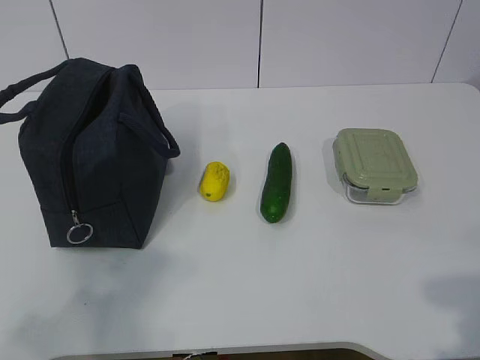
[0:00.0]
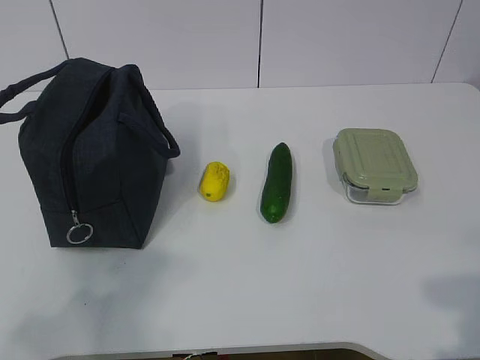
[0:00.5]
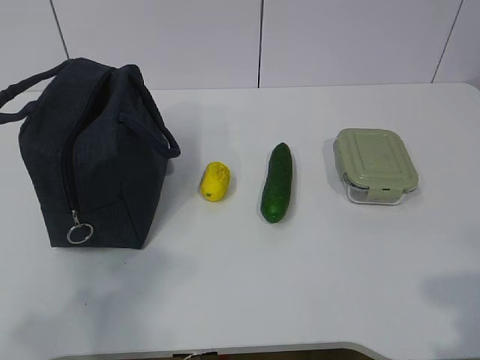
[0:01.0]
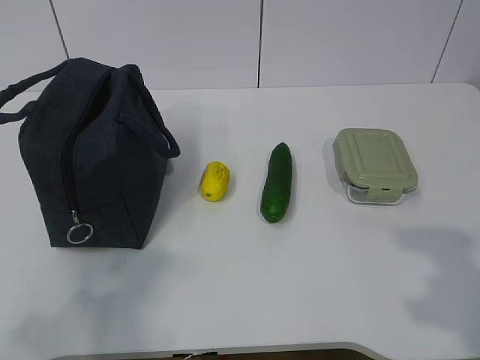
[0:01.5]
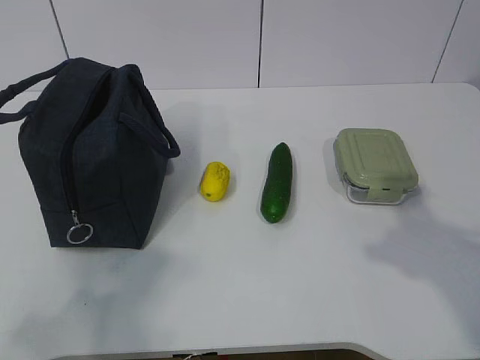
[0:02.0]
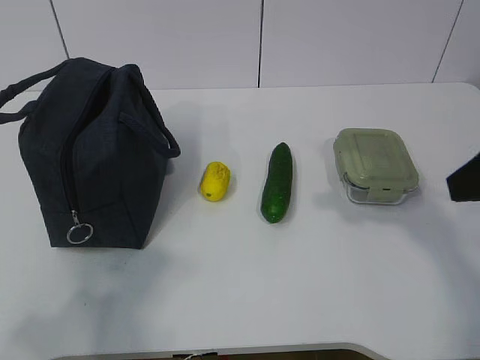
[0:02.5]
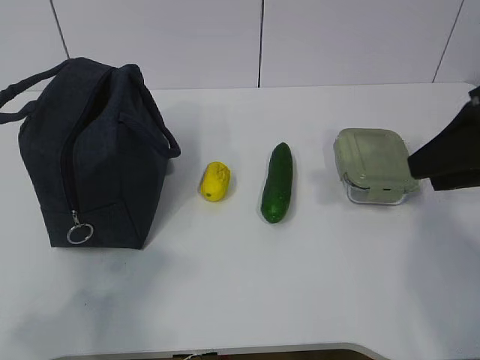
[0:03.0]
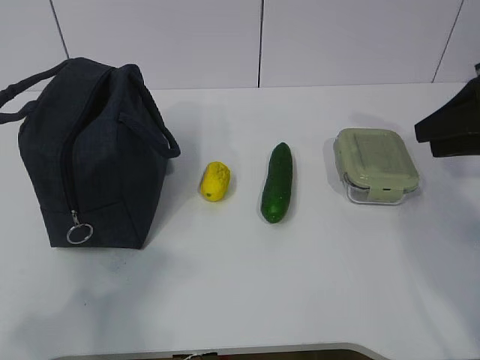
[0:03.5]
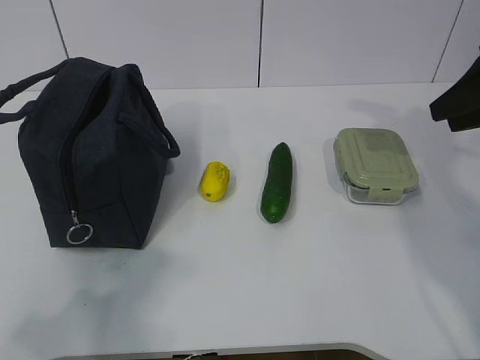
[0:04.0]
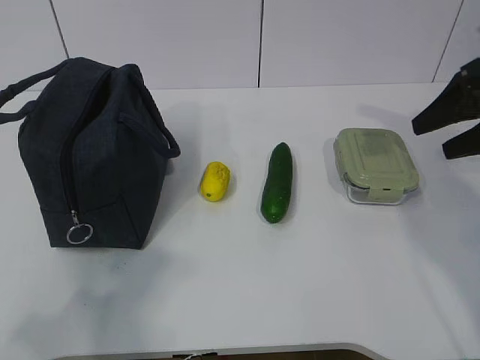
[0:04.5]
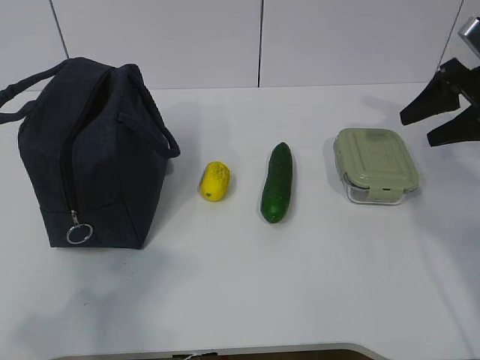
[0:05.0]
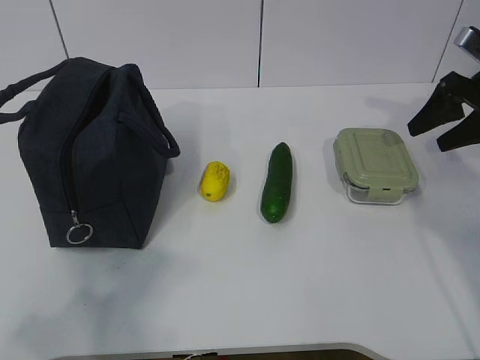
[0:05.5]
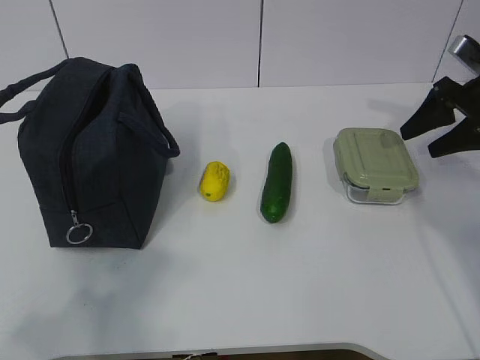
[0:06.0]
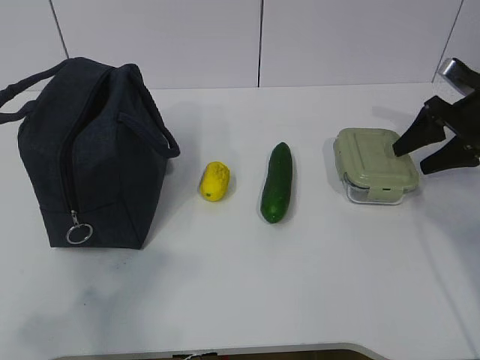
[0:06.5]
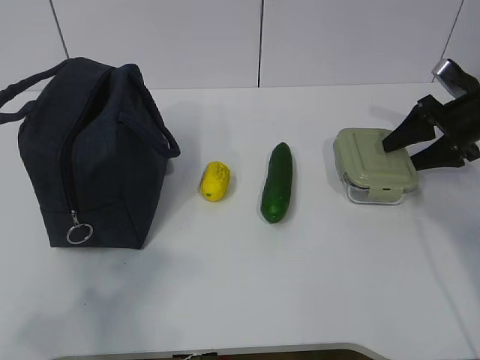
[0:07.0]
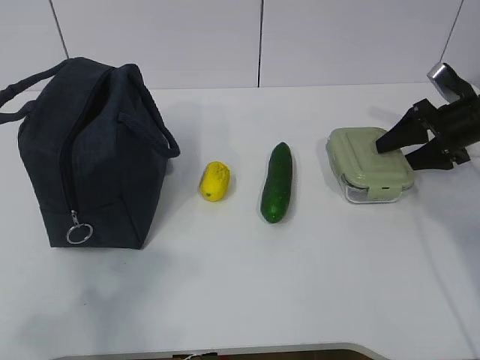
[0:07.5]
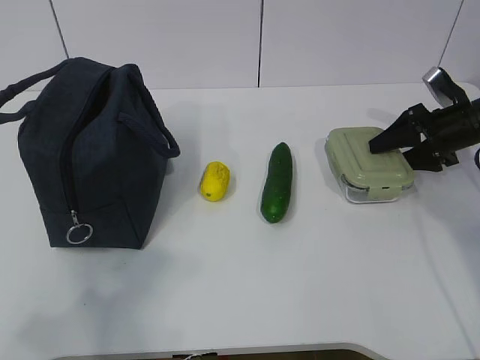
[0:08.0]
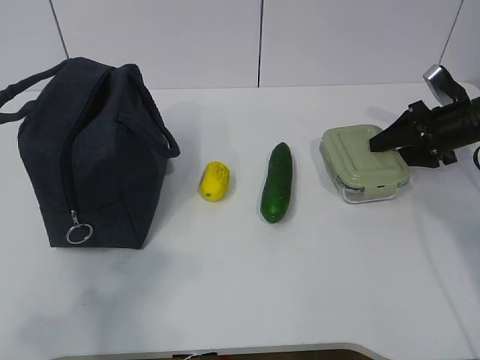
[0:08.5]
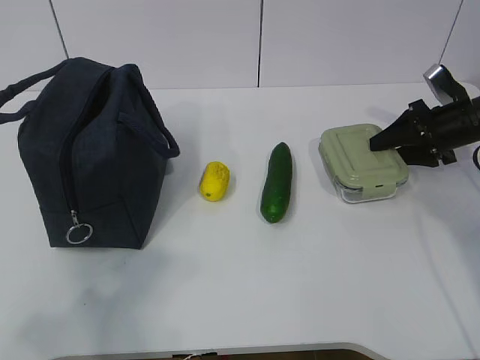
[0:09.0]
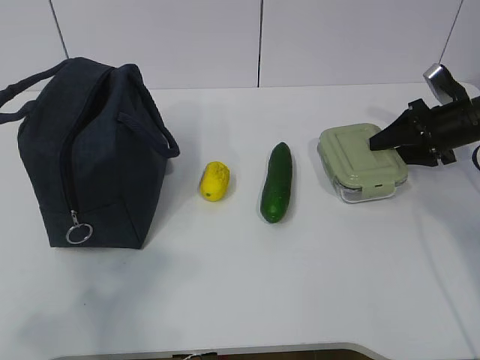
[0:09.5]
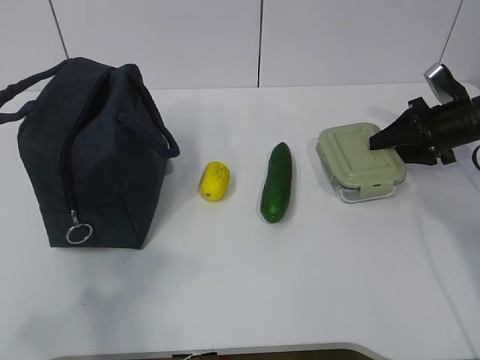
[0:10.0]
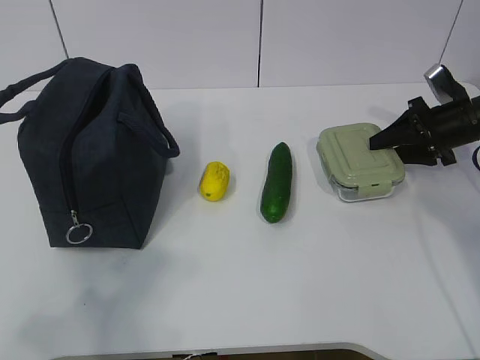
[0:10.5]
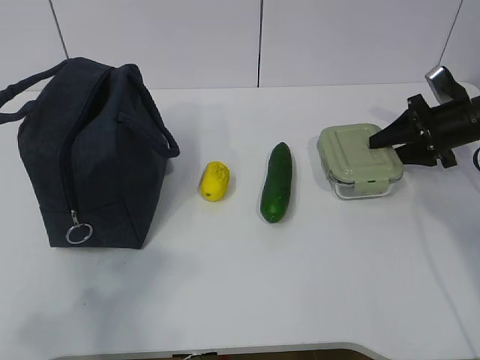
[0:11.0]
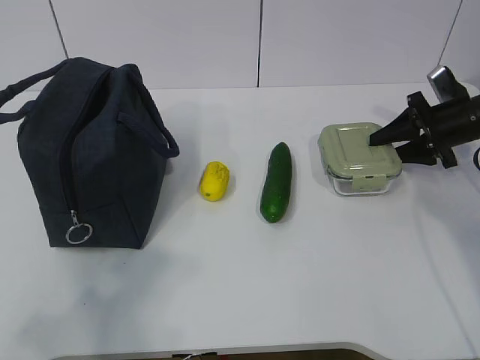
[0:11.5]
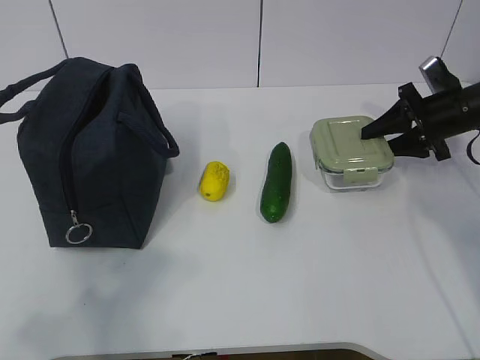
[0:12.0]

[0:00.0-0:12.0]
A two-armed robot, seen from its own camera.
Step, 0:00.0 to 0:09.0: Grab the lunch box with your right hand.
0:02.0 to 0:04.0: The right gripper is displaced forward by roughly 25 cm.
0:04.0 to 0:06.0: The right gripper heads forward and downward, covering roughly 10 cm, and opens up.
0:06.0 to 0:08.0: The right gripper goes some 5 cm downward.
0:08.0 to 0:10.0: The two grippers keep their place.
0:10.0 to 0:12.0: There are only small adjustments of the grippers.

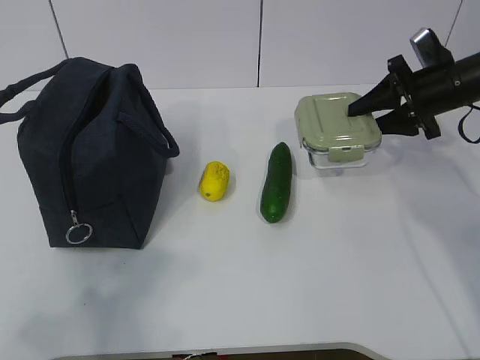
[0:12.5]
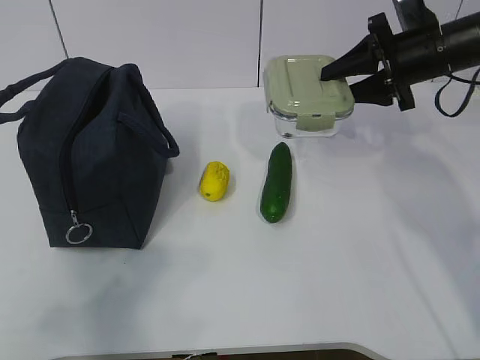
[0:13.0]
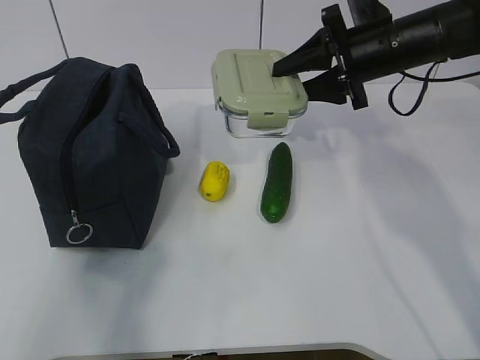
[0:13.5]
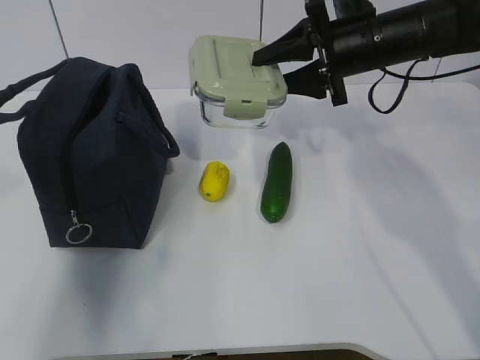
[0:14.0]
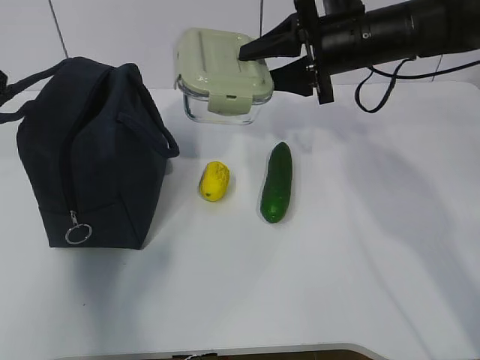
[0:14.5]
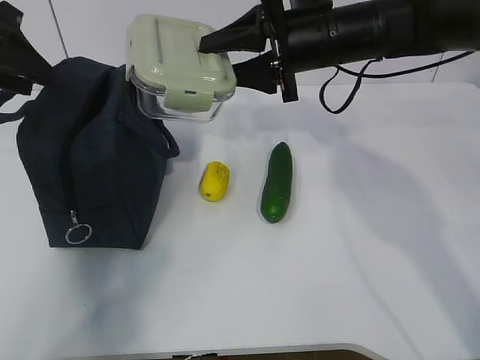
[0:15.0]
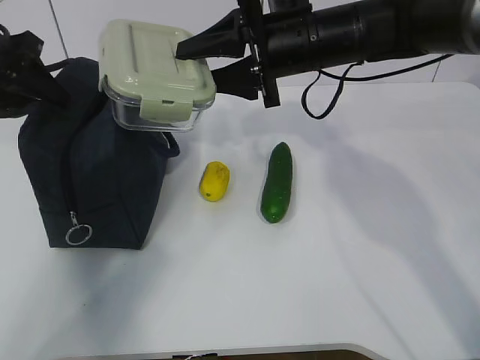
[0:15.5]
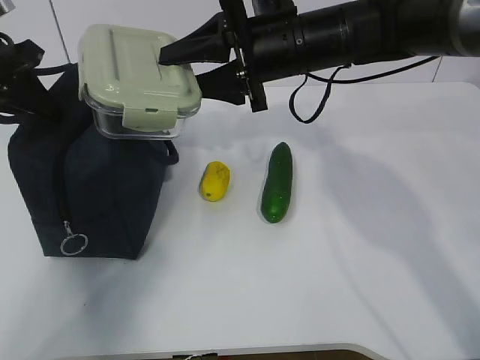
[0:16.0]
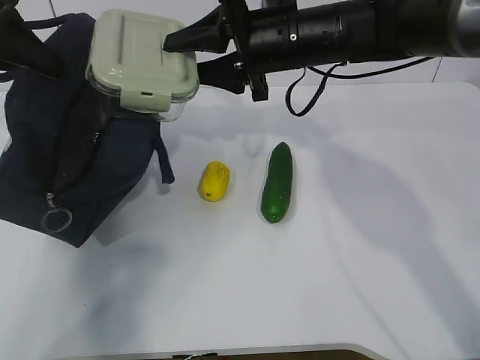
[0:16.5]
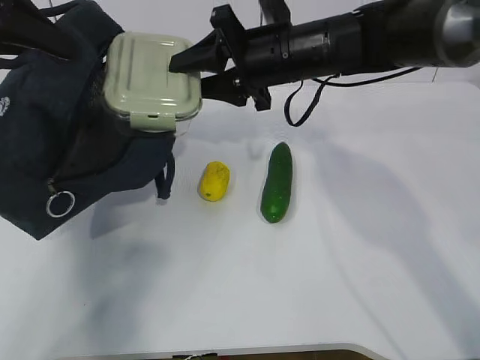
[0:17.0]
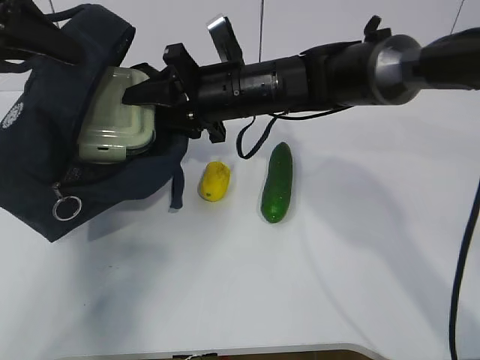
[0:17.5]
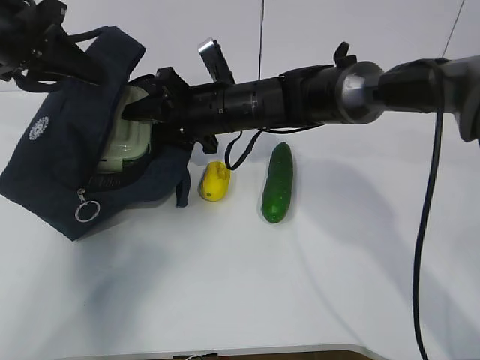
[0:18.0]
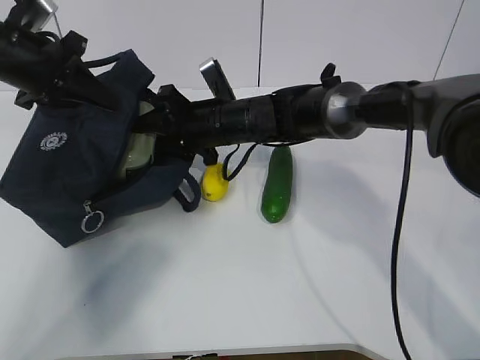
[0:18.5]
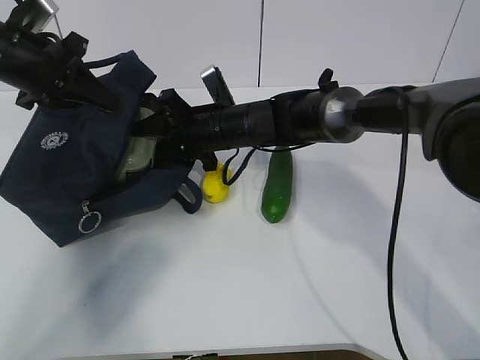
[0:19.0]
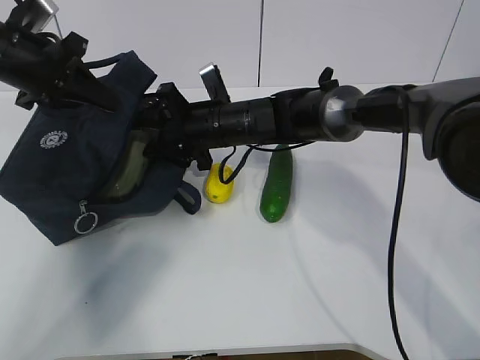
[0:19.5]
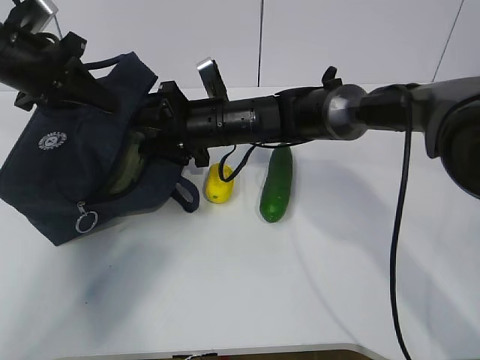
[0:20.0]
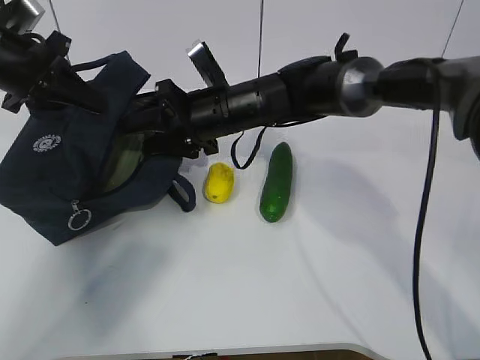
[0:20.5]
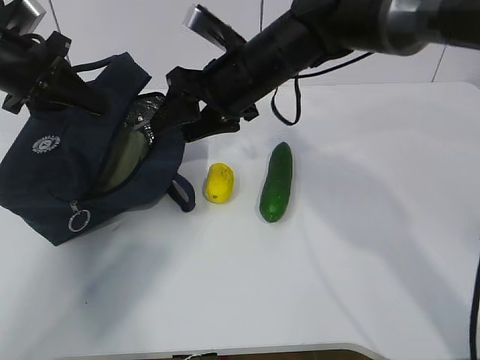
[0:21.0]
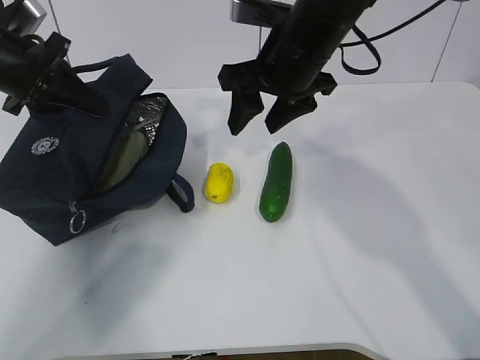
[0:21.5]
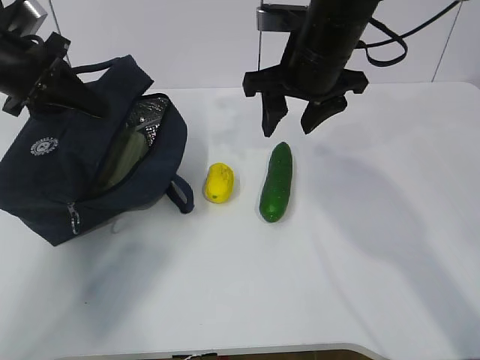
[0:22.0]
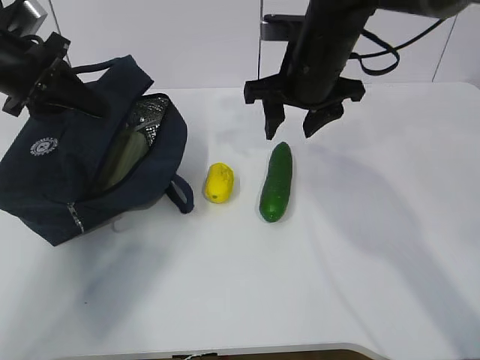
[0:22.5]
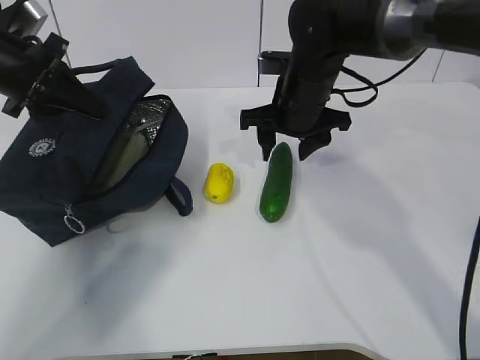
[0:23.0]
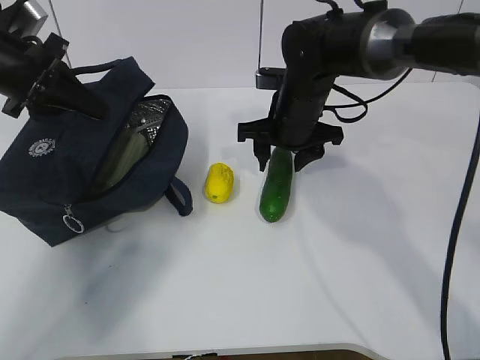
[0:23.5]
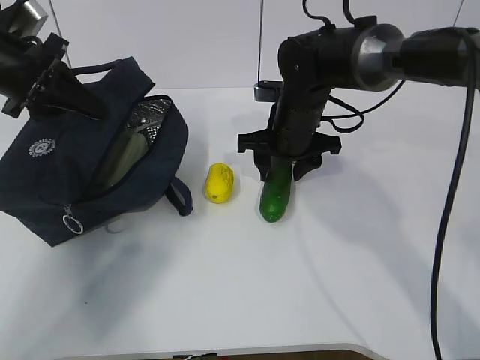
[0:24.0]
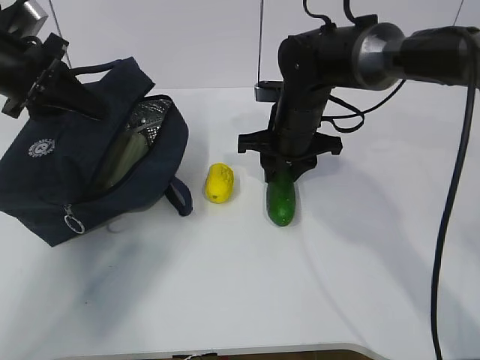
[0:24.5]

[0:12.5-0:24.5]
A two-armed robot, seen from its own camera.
Step, 0:14.0 to 0:16.0: Place it into the bag with your right hand.
Step, 0:16.5 to 0:20.0: Grab the cucumber with your right hand.
Step, 0:20.5 to 0:23.0: Place it into the bag with your right hand.
0:12.5 to 0:14.5: The left gripper is displaced forward by roughly 30 cm. The right gripper travels to the left and upward by some 15 cm.
0:14.5 to 0:16.5: The right gripper goes roughly 10 cm to the left. Meanwhile the left gripper is displaced forward by roughly 5 cm, and closes up.
0:16.5 to 0:18.5: The right gripper moves downward and to the left, approximately 15 cm. The left gripper goes roughly 5 cm downward.
0:18.5 to 0:20.5: The grippers make only small movements.
0:20.5 to 0:22.5: The right gripper travels to the right and upward by some 10 cm.
0:22.5 to 0:24.5: The right gripper shifts approximately 10 cm downward.

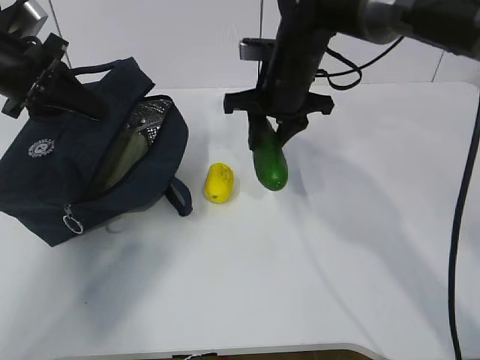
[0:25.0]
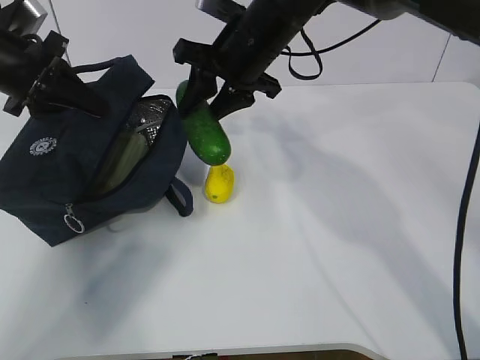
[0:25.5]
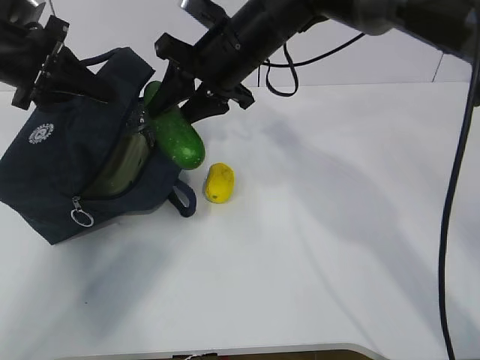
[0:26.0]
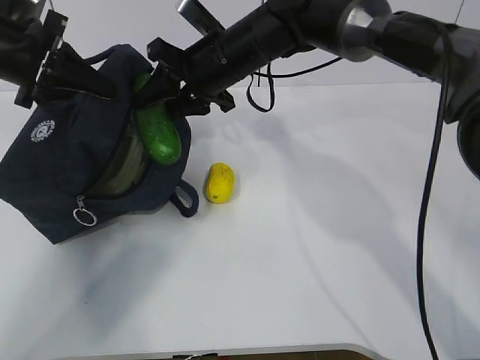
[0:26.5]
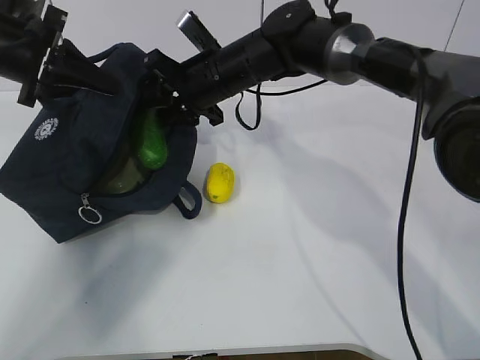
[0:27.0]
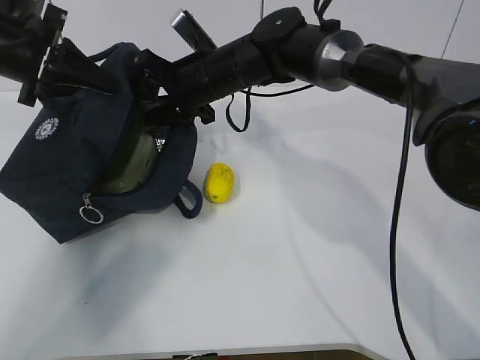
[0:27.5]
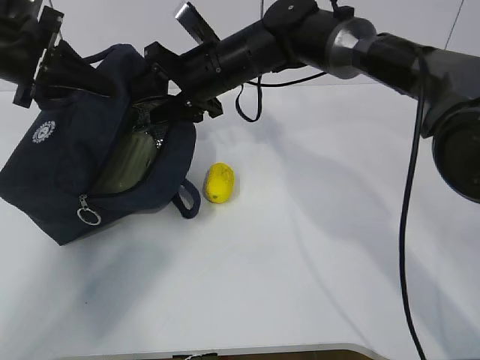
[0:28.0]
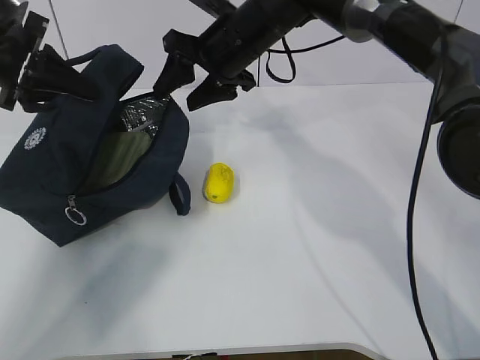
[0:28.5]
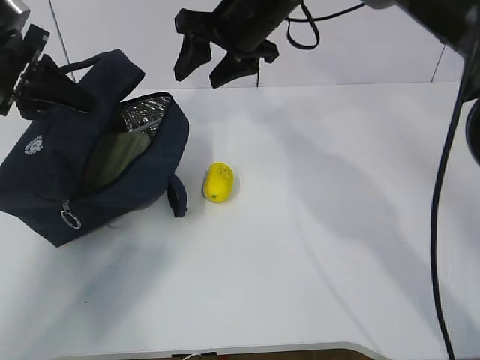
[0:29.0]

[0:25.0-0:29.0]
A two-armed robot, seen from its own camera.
Step, 0:25.0 to 0:27.0: Grab the lemon with your right hand.
0:25.0 to 0:27.0: The right gripper goes approximately 10 cm to the left.
0:27.0 to 0:29.0: The right gripper shifts about 10 cm upward.
